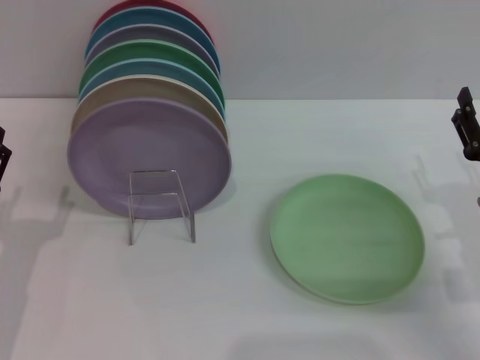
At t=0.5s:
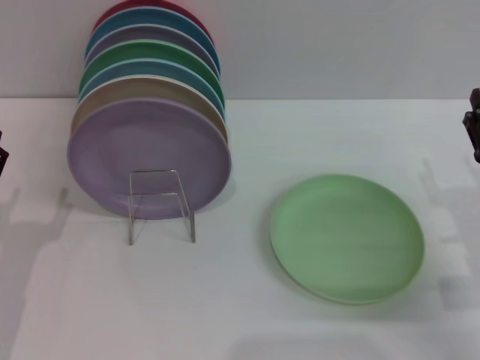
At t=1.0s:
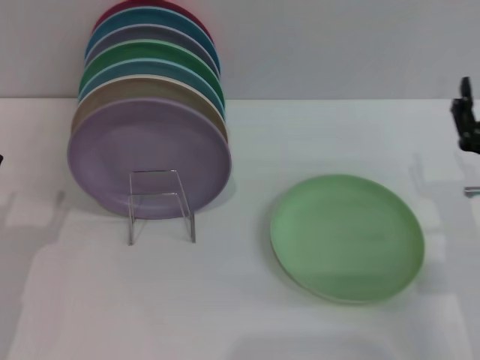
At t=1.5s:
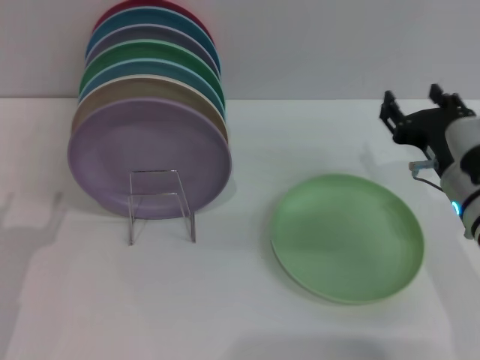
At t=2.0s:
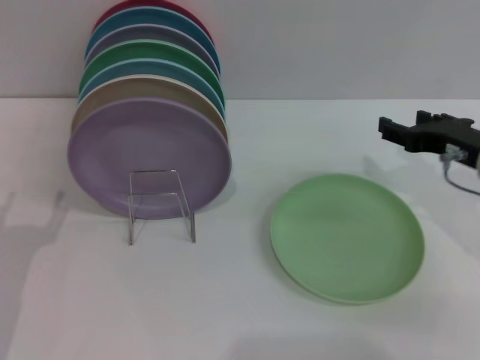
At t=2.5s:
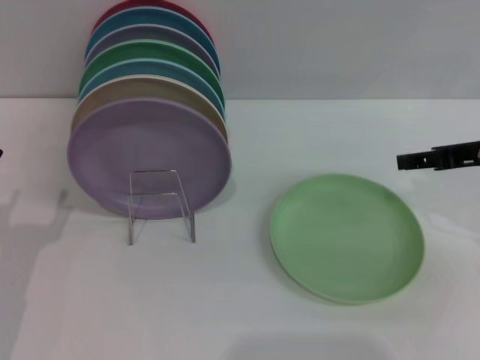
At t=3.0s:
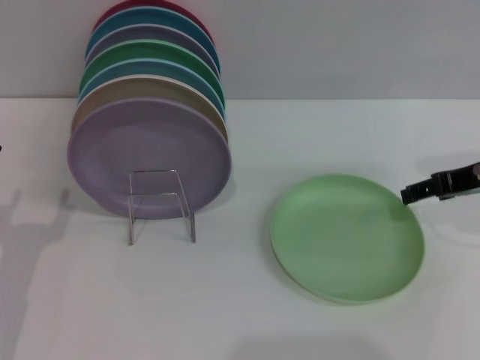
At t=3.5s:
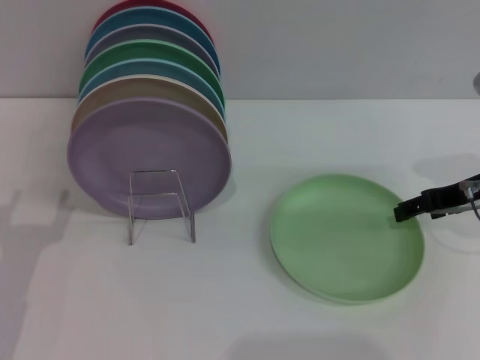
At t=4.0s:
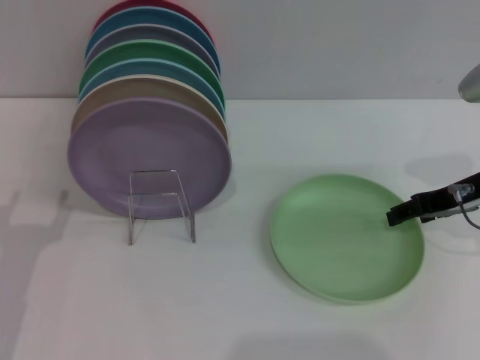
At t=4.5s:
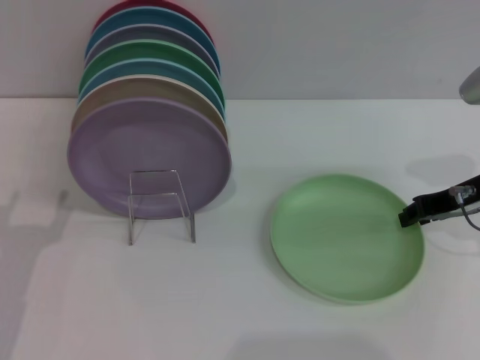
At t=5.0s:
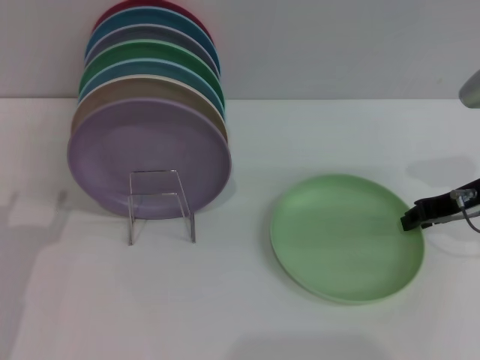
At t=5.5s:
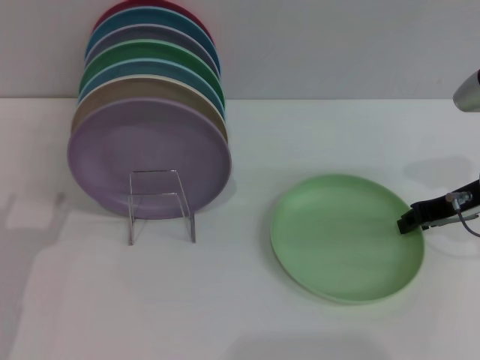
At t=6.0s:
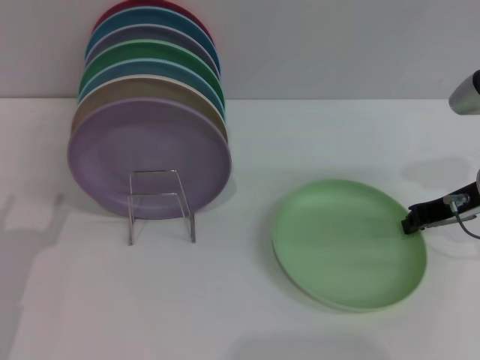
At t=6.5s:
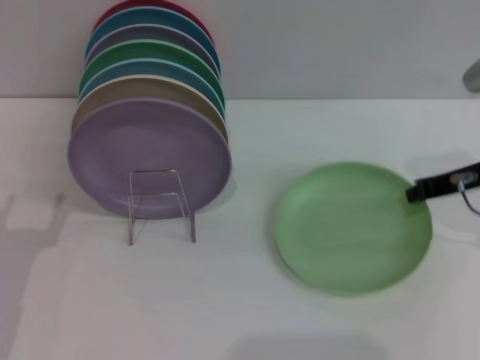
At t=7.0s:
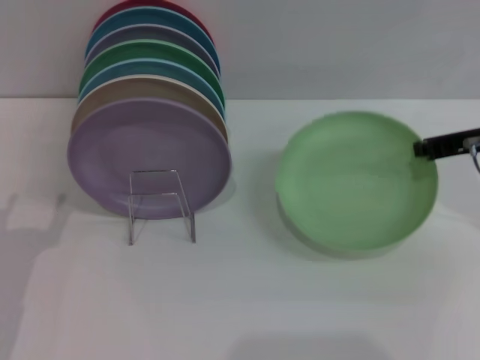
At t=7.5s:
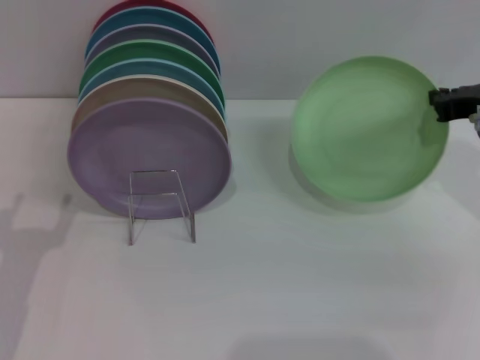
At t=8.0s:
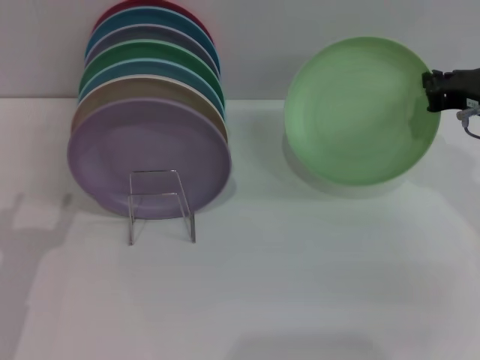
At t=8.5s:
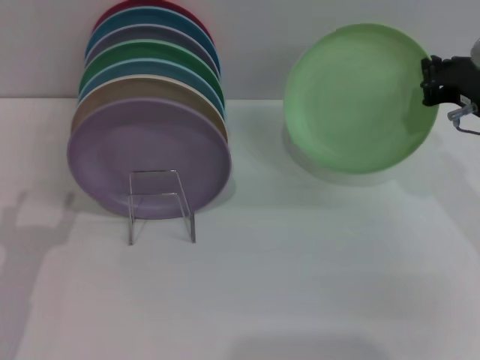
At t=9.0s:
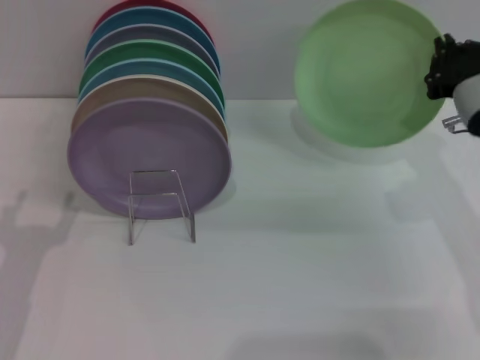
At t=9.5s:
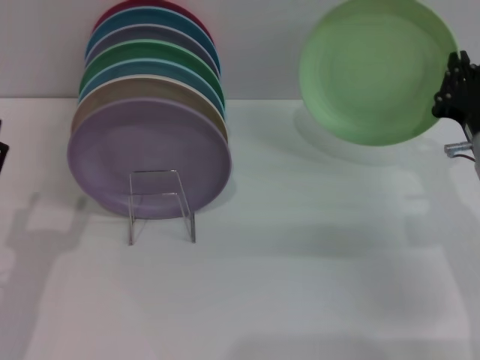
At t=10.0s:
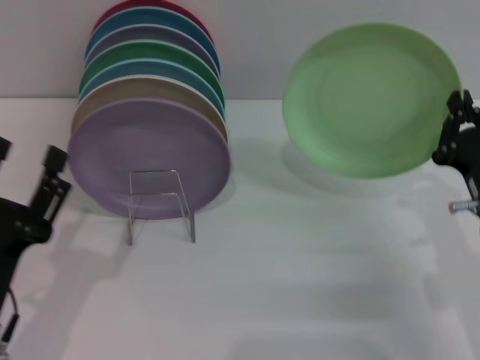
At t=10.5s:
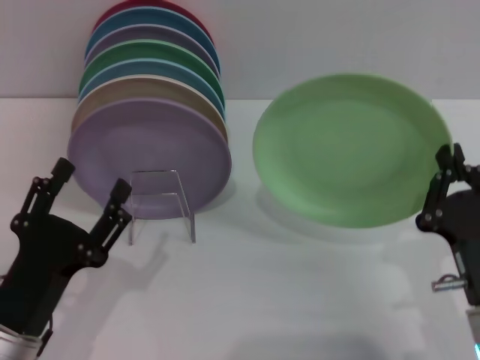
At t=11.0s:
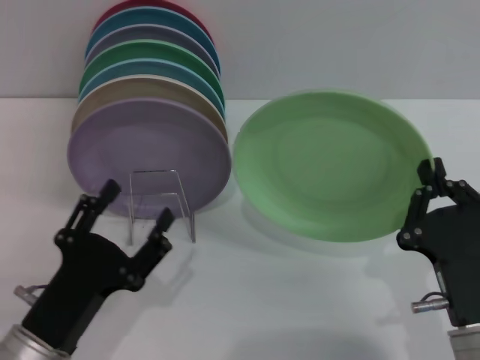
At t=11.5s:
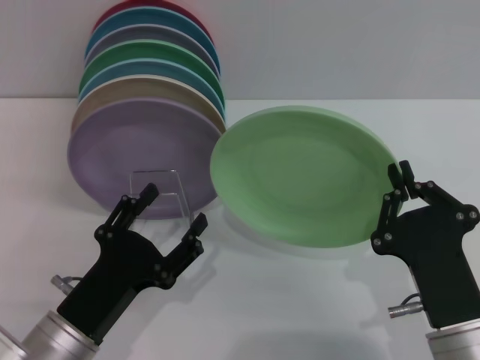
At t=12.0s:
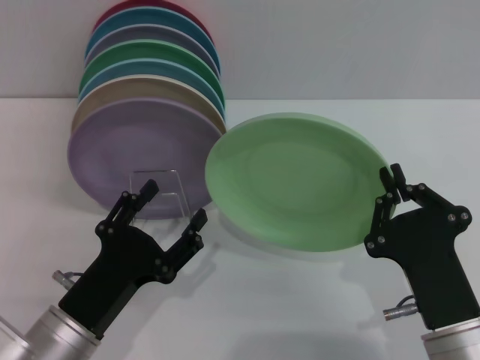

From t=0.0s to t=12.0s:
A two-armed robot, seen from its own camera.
Task of the whole recording: Grip the plate with one hand, pass it to the other, then set it on the shelf.
Step, from t=0.0s to t=7.0s: Pick up the plate with the right gripper.
From t=0.0s to t=2.0s: The right gripper travels upward and forward by roughly 10 cm.
From t=4.0s to t=6.0s: The right gripper closes.
From t=8.0s to t=10.0s: The right gripper is displaced downward and backward by approximately 15 cm.
From t=10.0s to t=12.0s: The right gripper goes some 10 cm backward and to the left; the left gripper is displaced to the right by some 5 cm.

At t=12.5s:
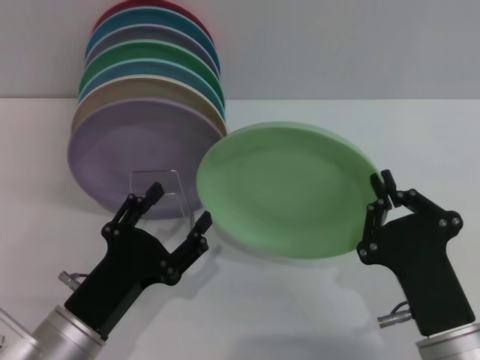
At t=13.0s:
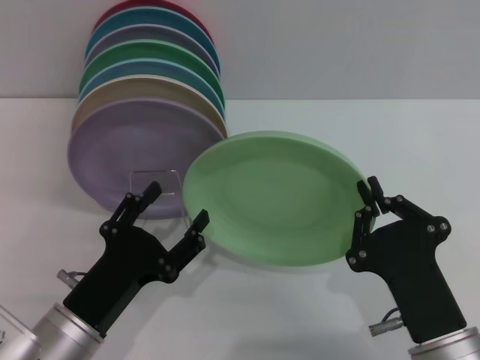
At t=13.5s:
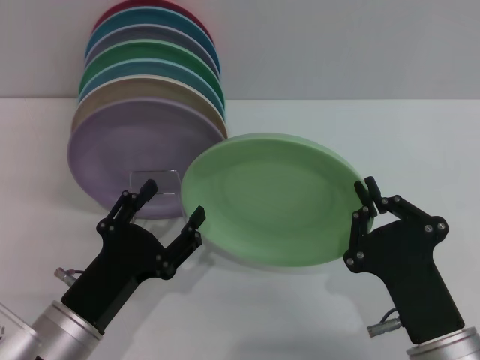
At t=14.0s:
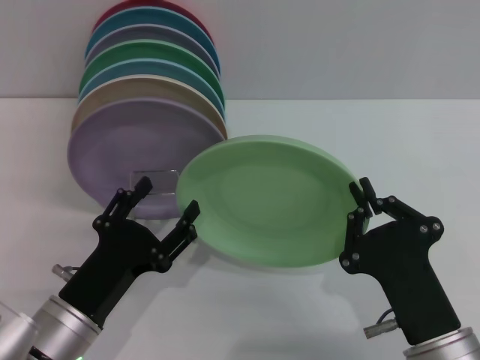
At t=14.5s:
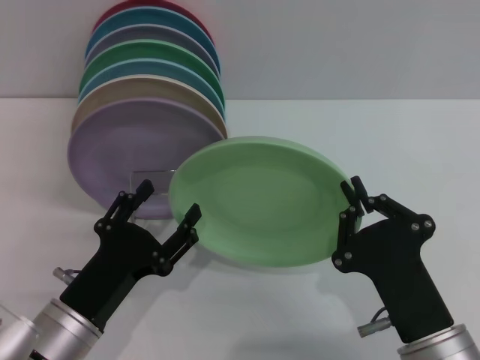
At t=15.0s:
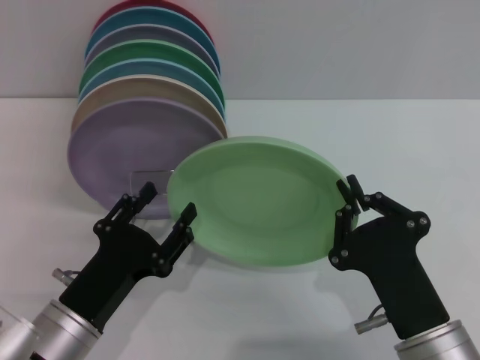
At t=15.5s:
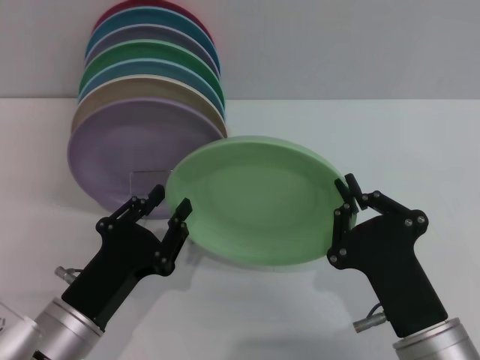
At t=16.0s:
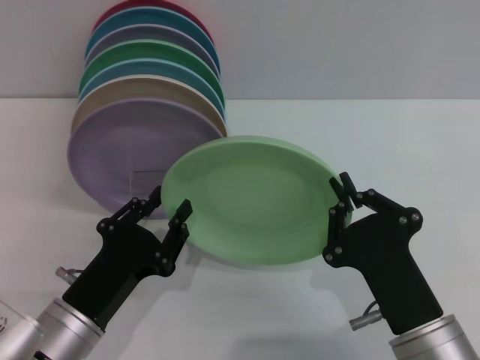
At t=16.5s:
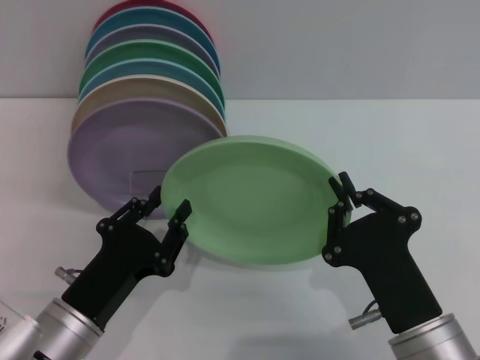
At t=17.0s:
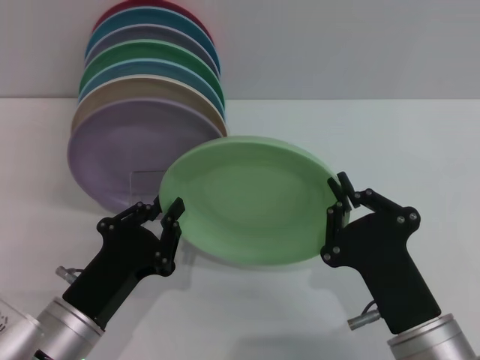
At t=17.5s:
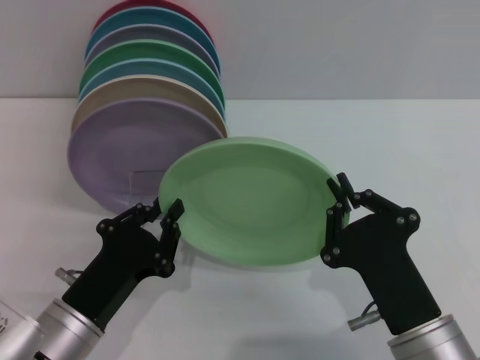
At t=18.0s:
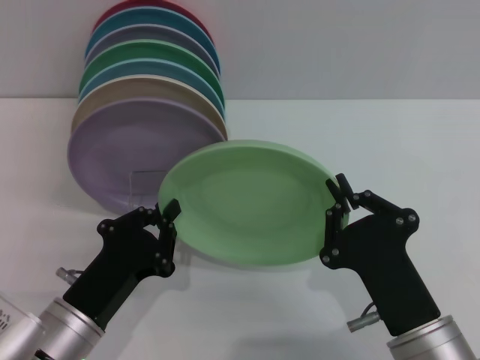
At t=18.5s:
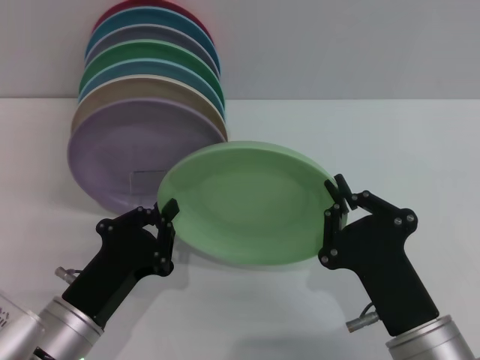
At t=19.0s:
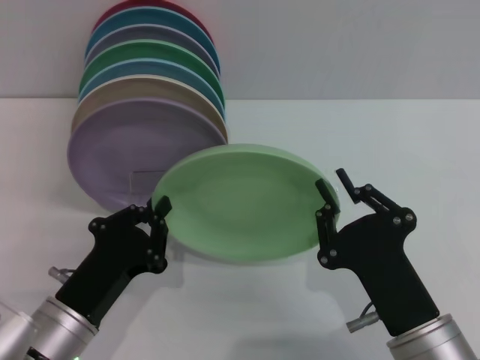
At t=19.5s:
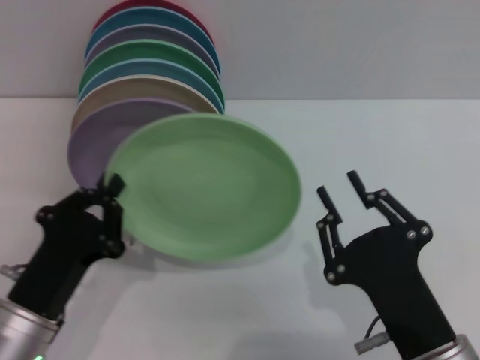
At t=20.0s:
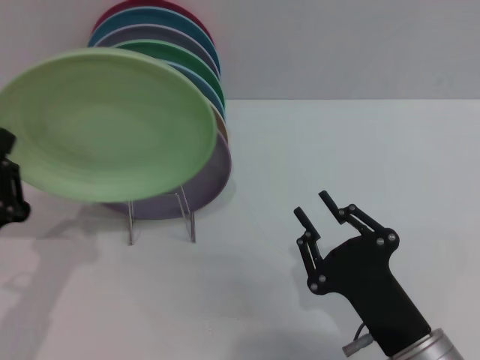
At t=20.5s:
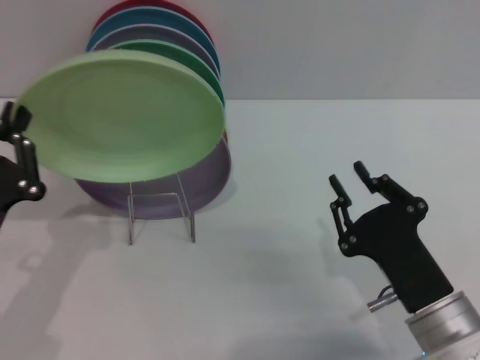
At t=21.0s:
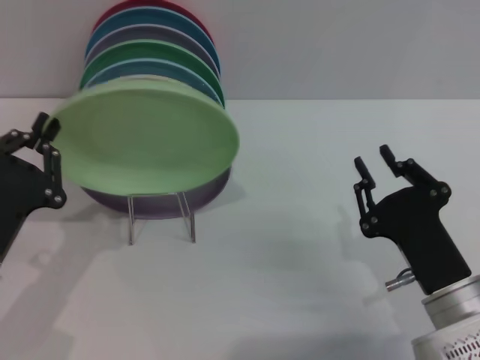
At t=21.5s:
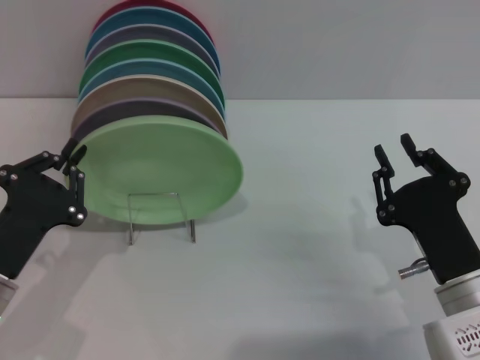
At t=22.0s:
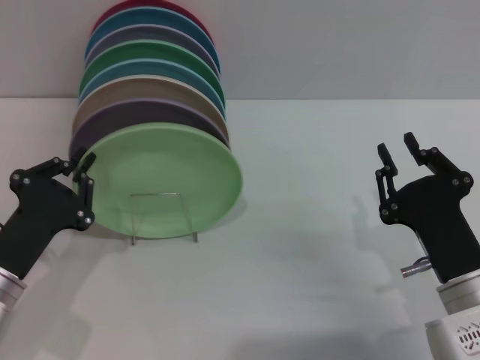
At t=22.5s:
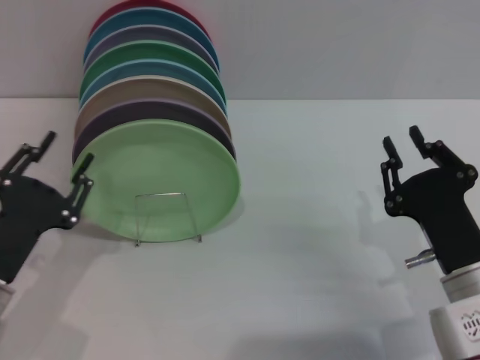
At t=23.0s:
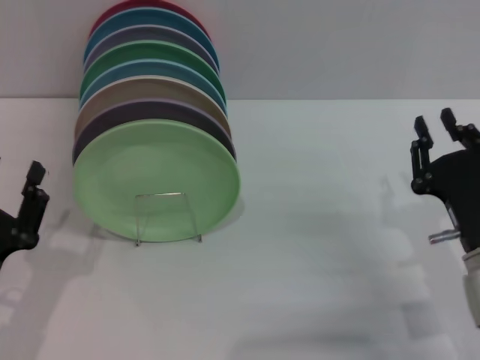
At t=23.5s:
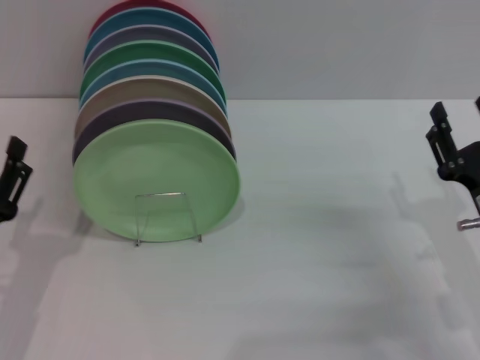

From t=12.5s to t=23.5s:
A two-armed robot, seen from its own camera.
Task of the whole recording: Grip the plate with one hand, pass it to the other, then set it on the shelf.
Step, from t=12.5s to t=19.5s: Pass the plate from the right gripper to the left gripper.
Step, from t=20.0s to t=22.0s: Place the plate on the shelf with the left gripper.
From t=12.5s to t=14.5s: The two grippers keep their place.
From t=14.5s to t=16.0s: The left gripper closes up.
From t=16.0s to t=18.0s: The left gripper closes its fingers.
From t=18.0s to t=20.0s: The left gripper heads to the left, covering roughly 10 cm. Meanwhile the right gripper opens up.
From t=20.0s to t=21.5s: The right gripper heads forward and to the right, covering some 5 cm.
From t=21.5s to t=23.5s: The right gripper goes about 5 cm to the right. Meanwhile the left gripper opens.
